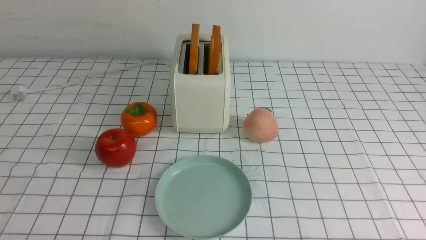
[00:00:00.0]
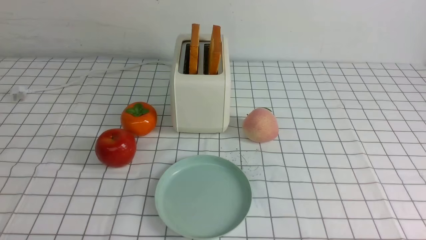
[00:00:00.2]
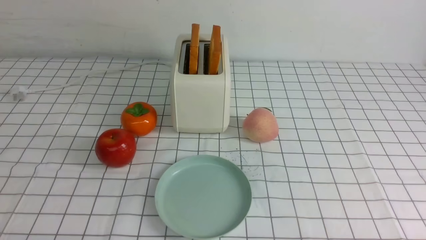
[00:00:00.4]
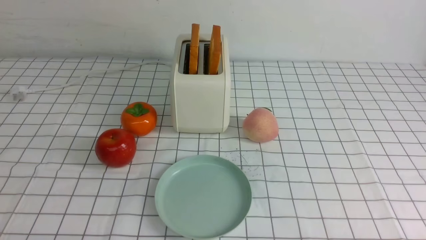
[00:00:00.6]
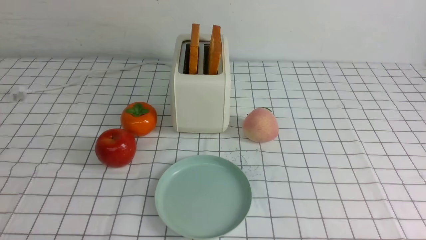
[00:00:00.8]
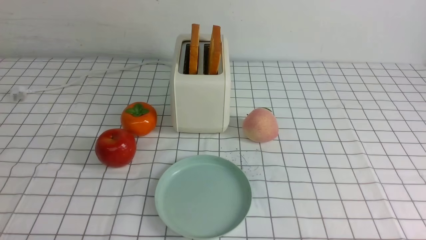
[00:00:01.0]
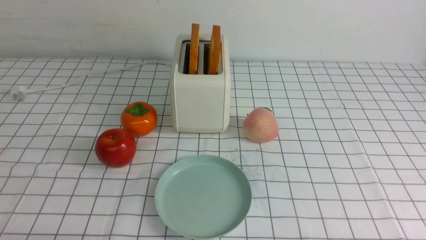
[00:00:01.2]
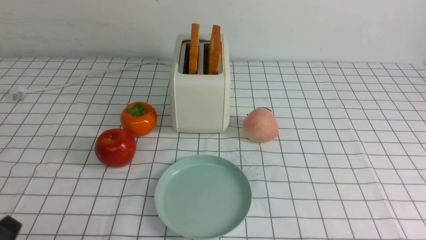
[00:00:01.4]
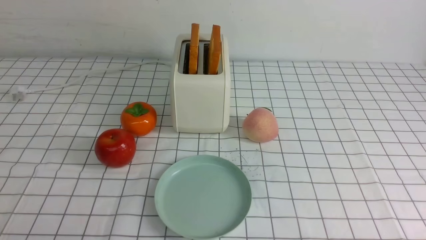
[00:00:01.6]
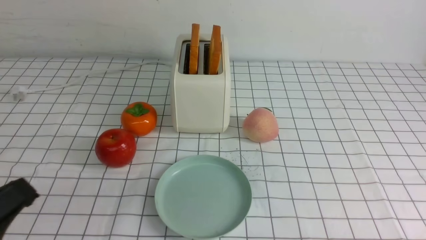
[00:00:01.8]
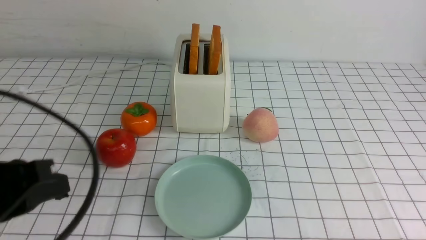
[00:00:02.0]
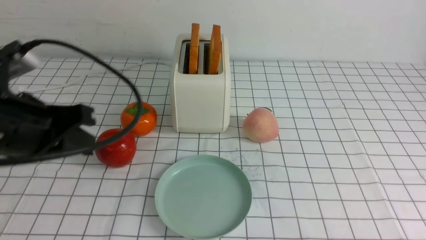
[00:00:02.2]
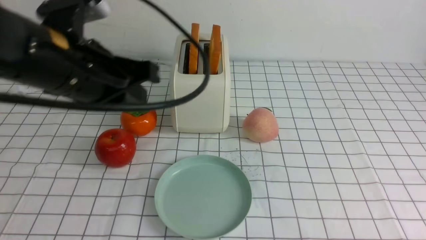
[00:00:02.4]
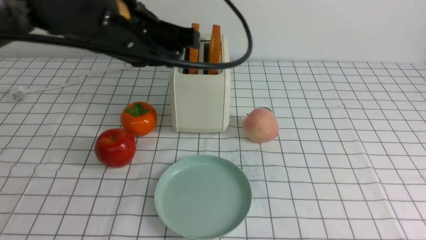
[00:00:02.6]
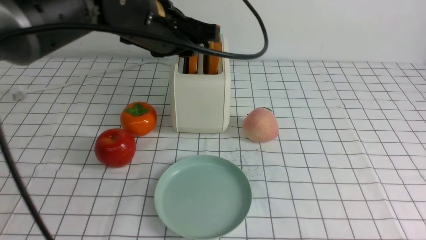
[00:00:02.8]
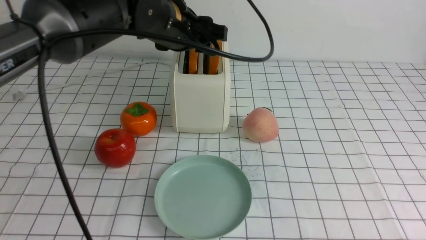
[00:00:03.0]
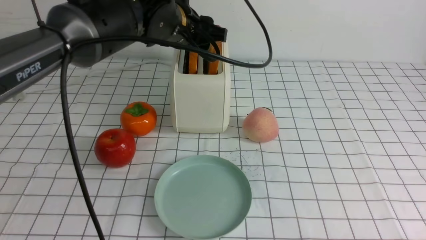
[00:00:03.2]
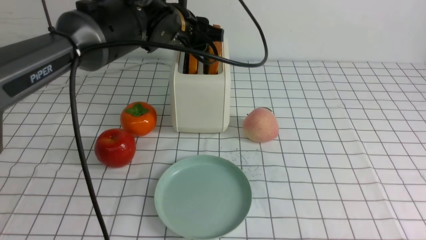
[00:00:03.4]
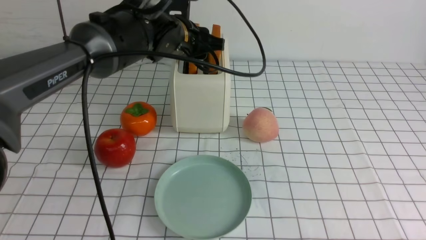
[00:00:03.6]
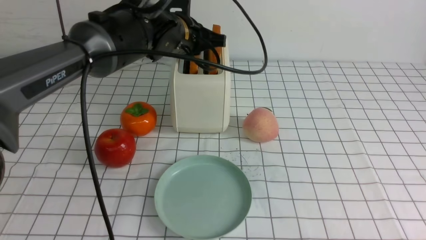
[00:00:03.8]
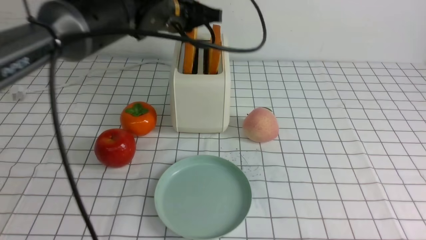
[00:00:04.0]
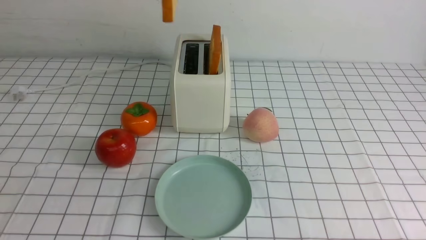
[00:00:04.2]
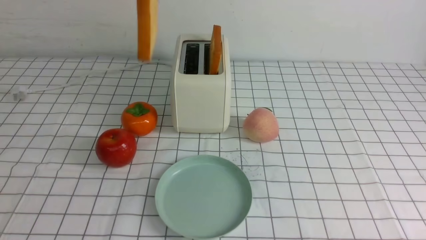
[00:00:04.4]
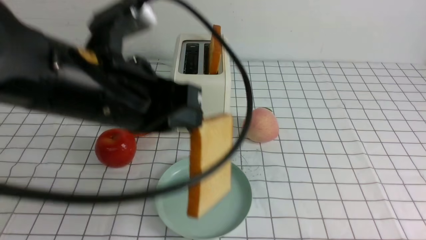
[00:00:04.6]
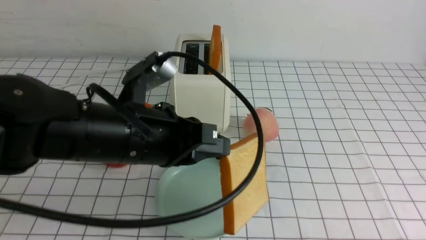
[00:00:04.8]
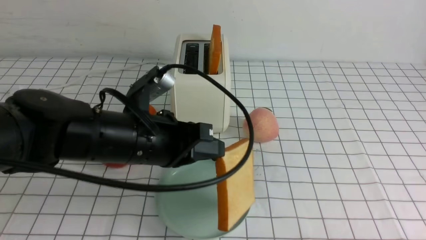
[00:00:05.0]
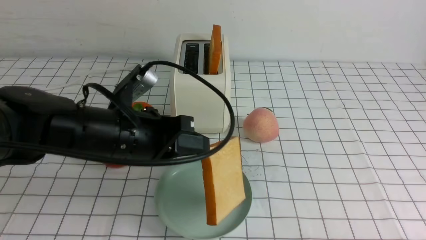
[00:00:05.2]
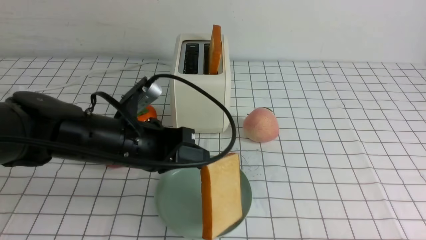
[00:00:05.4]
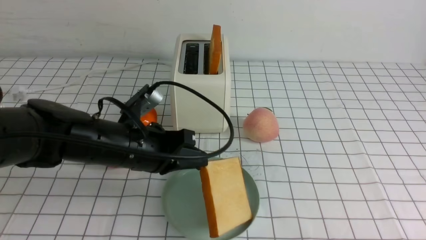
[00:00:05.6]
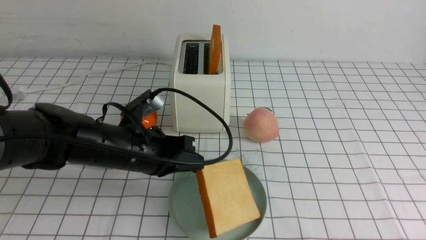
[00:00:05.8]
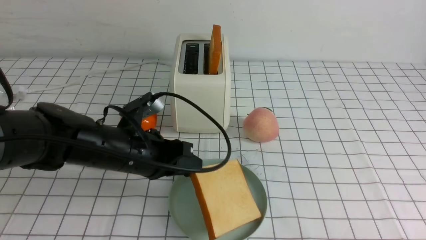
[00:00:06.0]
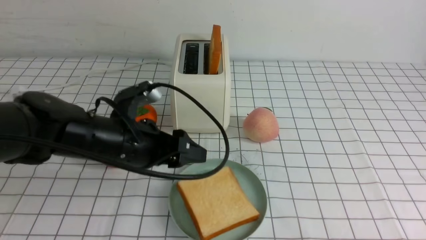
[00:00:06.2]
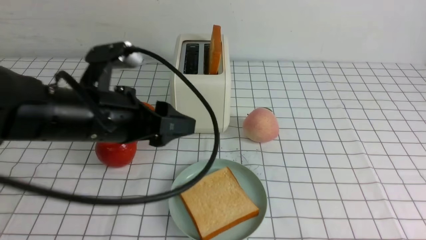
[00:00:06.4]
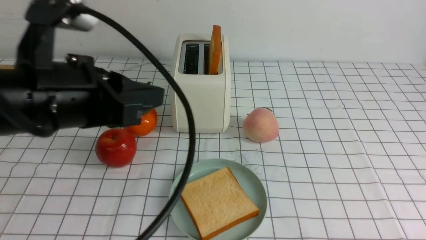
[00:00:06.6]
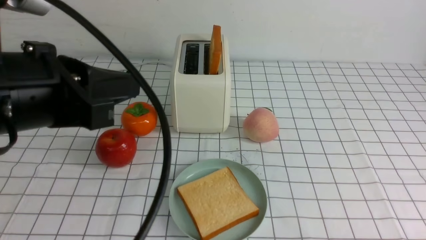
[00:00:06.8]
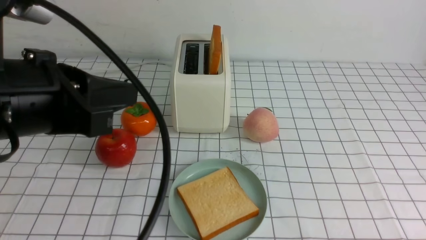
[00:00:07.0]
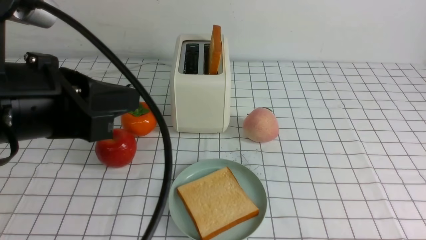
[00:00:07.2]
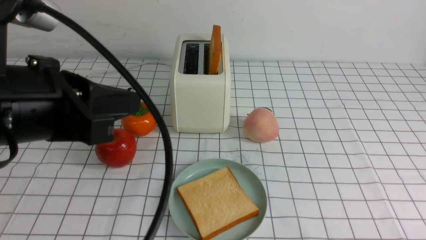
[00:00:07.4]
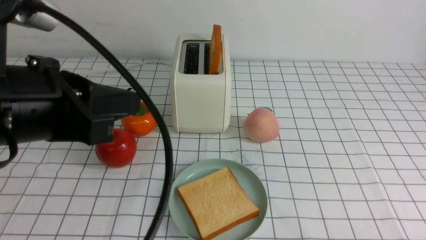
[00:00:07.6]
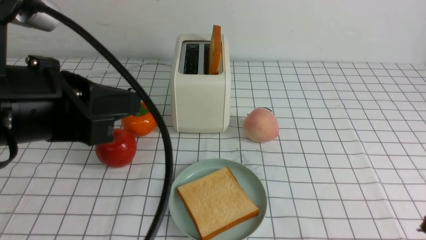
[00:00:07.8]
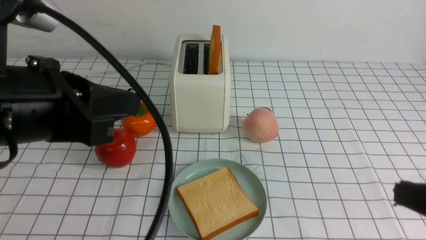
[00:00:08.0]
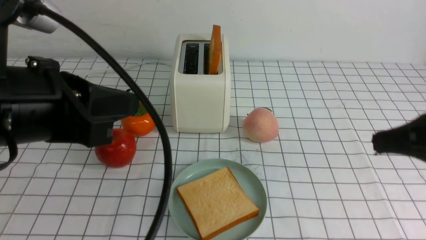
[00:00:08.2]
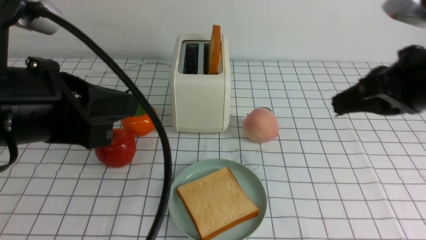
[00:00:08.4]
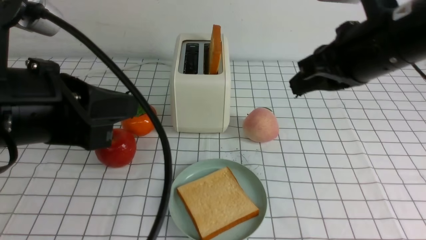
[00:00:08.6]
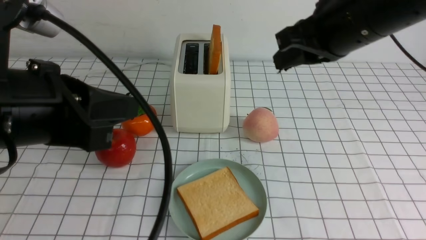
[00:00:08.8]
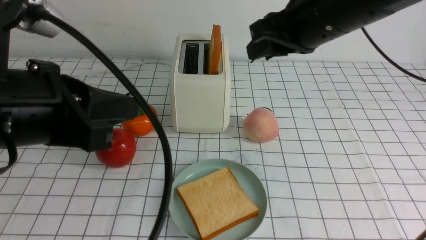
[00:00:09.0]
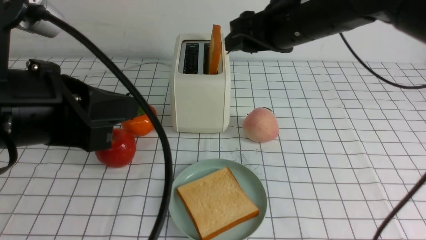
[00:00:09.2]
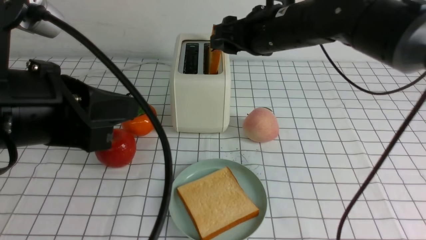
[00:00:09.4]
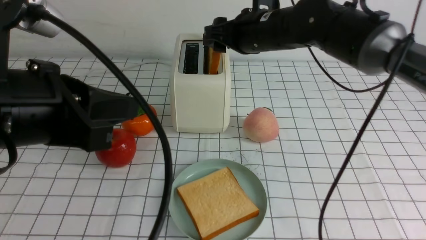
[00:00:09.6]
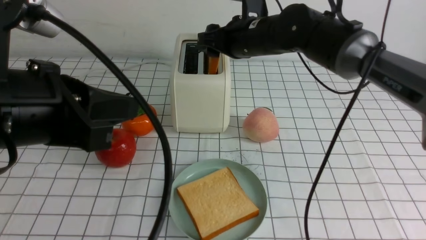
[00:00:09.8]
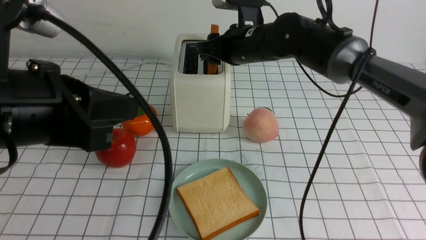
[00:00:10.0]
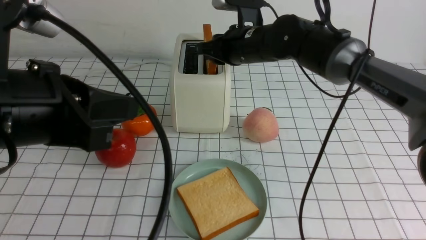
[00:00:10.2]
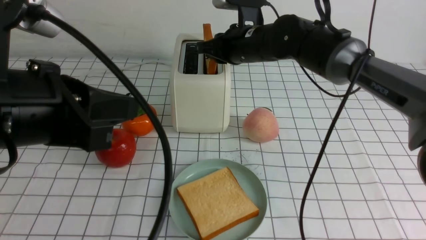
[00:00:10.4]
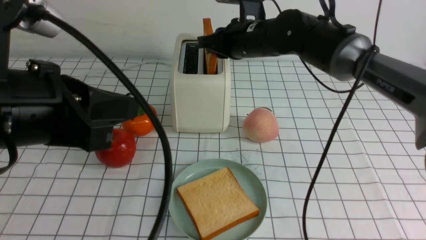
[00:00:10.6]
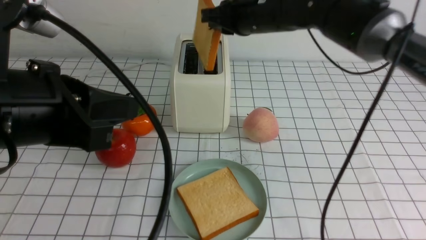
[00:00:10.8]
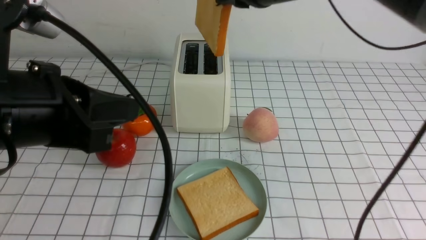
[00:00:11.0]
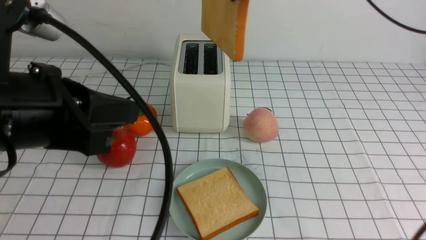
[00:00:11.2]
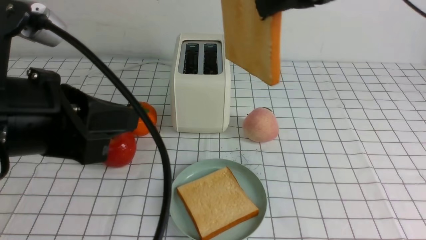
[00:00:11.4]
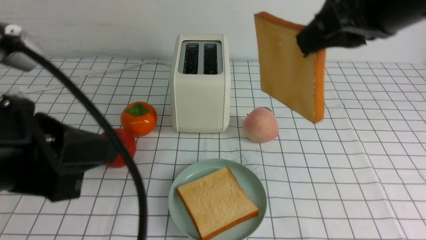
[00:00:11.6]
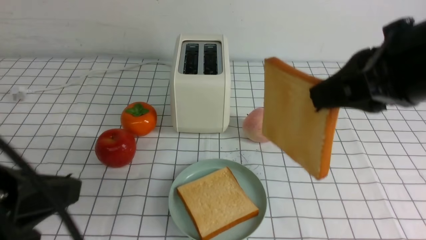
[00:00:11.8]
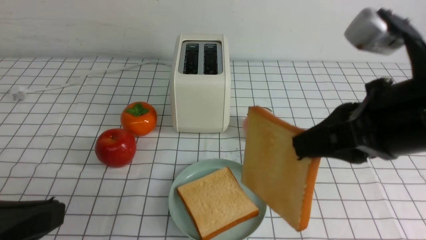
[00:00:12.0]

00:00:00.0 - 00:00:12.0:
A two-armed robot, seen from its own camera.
Task of the whole recording: take toasted bread from bread machine on white checkered table place on plate.
Step, 00:00:00.0 - 00:00:04.0: use the left arm to take out a slice of bread.
Step, 00:00:04.2 - 00:00:06.2: use the left arm to put a slice of bread into the empty plate.
Step, 00:00:06.6 - 00:00:11.0: use the right arm to take out a slice of bread.
00:00:01.6 - 00:00:03.0: The left gripper goes approximately 40 cm forward and to the right, and opens its fingers.
00:00:03.0 - 00:00:04.4: The left gripper travels backward, upward and to the left by roughly 15 cm, and closes its fingers.
00:00:04.4 - 00:00:06.0: The left gripper is displaced downward by some 20 cm, and opens up.
00:00:06.0 - 00:00:07.6: The left gripper goes some 20 cm upward and backward, and closes.
00:00:07.6 - 00:00:09.0: The right gripper heads forward, upward and to the left, covering about 40 cm, and closes and opens again.
00:00:09.0 - 00:00:10.4: The right gripper moves forward, downward and to the left, approximately 15 cm, and closes its fingers.
00:00:10.4 - 00:00:12.0: The left gripper shifts about 10 cm backward. The right gripper shifts roughly 25 cm backward.

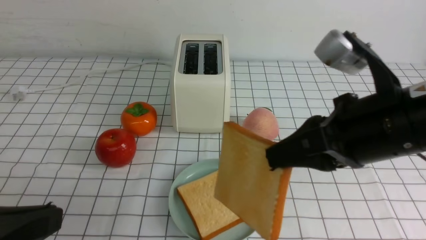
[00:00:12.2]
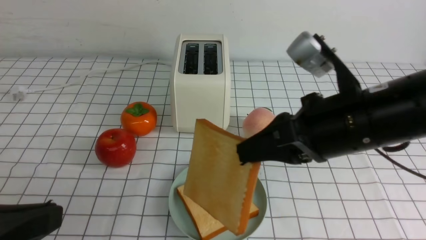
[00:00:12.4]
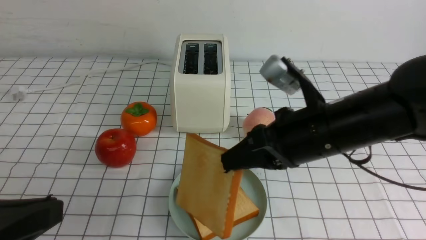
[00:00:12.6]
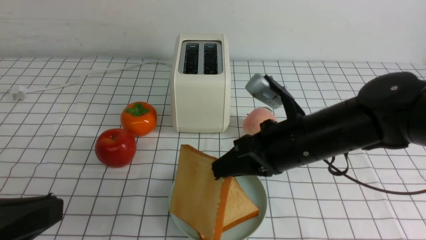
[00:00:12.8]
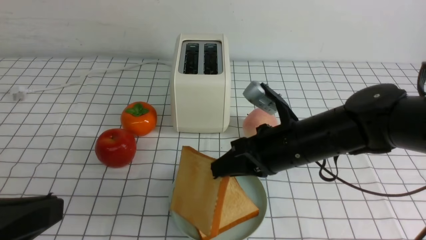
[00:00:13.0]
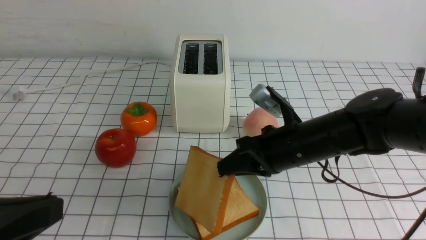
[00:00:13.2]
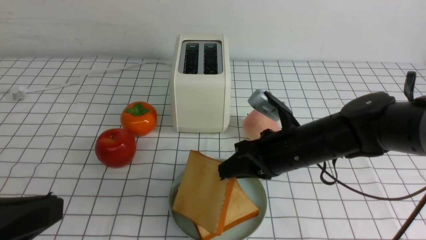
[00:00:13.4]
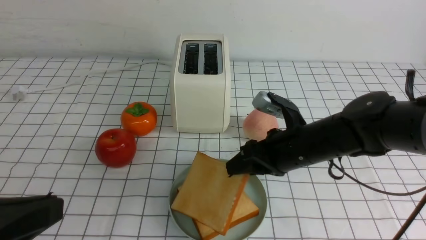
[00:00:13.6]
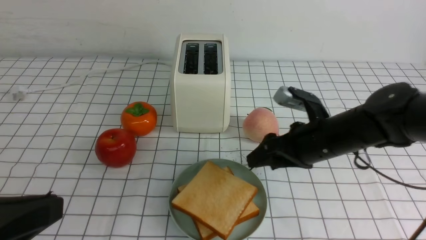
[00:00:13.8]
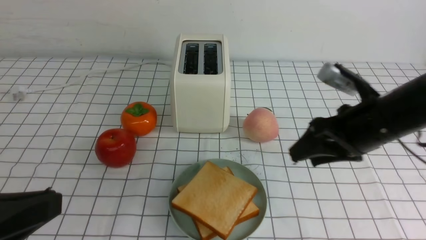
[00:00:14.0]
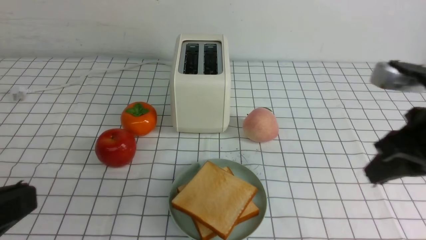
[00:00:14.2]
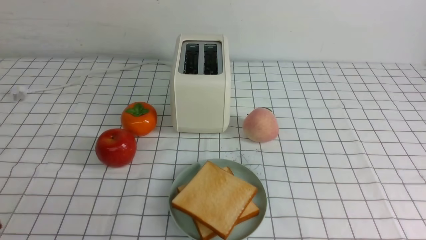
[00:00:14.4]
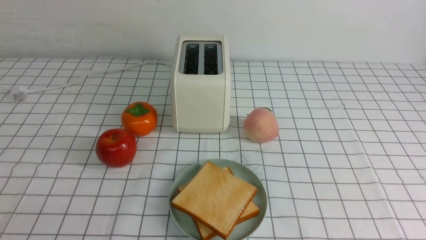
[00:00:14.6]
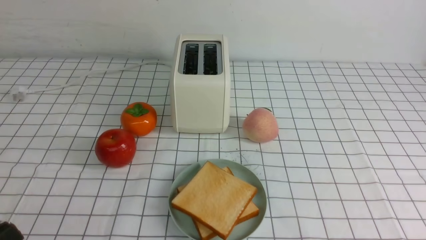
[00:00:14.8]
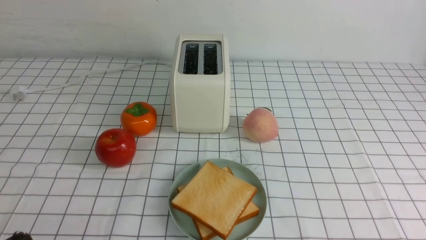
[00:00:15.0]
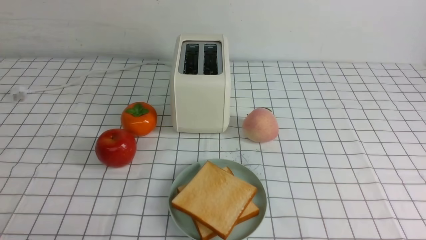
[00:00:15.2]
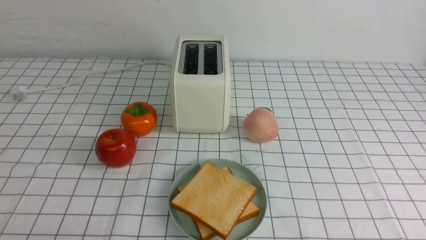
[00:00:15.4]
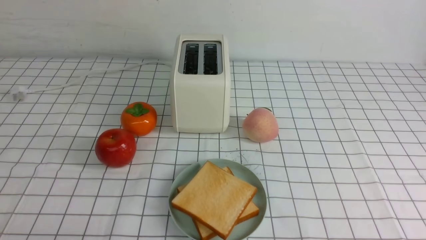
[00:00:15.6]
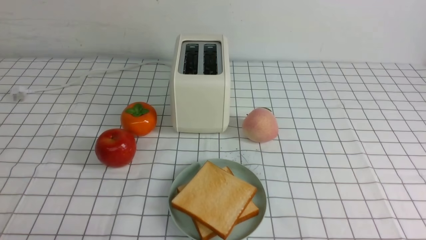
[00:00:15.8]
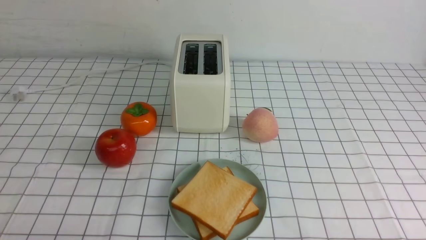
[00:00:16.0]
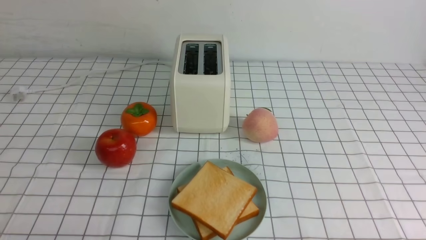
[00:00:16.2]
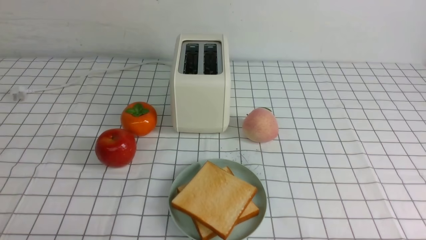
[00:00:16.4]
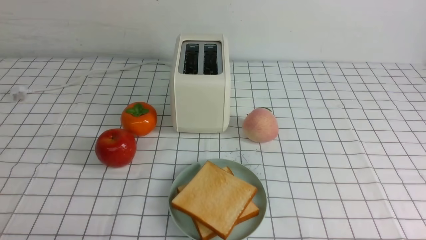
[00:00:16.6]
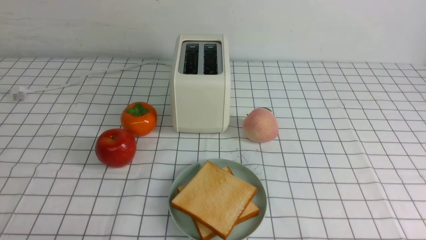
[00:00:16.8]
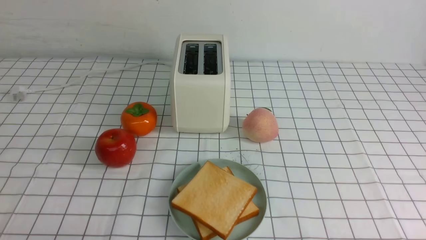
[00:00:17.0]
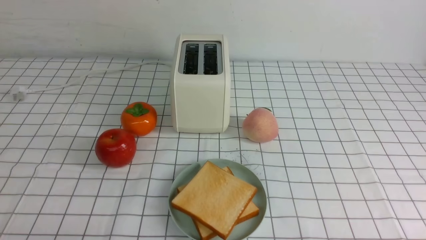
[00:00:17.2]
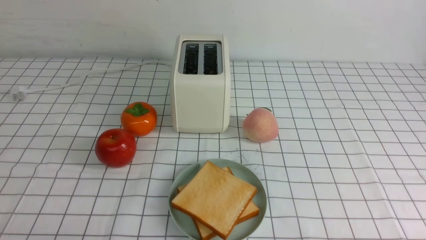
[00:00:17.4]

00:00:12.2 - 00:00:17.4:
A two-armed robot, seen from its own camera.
Task of the whole recording: take toasted bread from bread machine on white checkered table place on plate.
Step, 00:00:12.2 - 00:00:13.6: use the right arm to put a slice of bread into the plate.
00:00:12.2 - 00:00:14.0: The right gripper goes some 10 cm forward, downward and to the right, and opens.
00:00:14.0 - 00:00:15.6: The left gripper heads downward, covering roughly 10 cm. Meanwhile the right gripper shifts some 25 cm backward, and closes its fingers.
